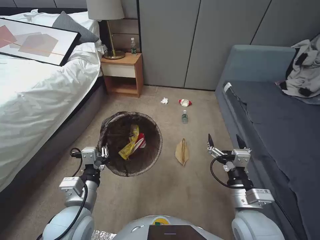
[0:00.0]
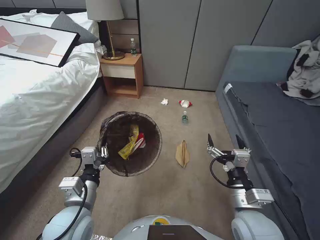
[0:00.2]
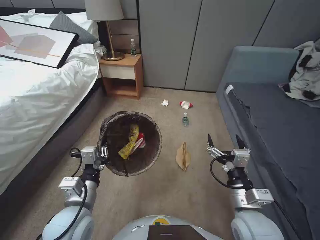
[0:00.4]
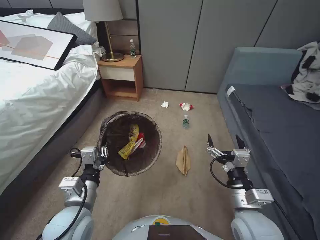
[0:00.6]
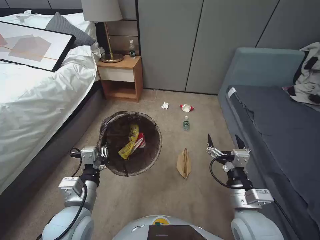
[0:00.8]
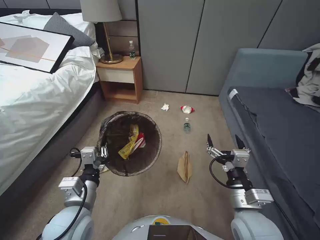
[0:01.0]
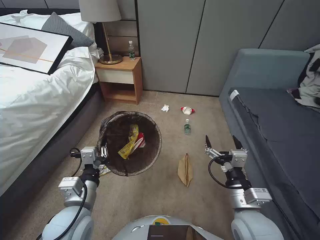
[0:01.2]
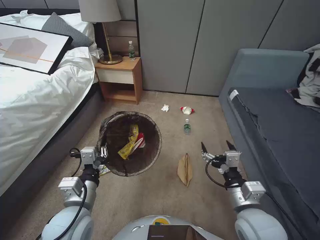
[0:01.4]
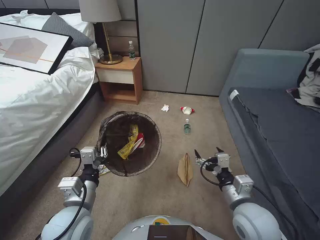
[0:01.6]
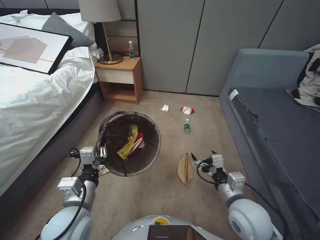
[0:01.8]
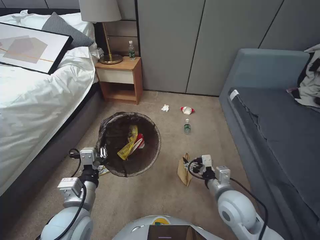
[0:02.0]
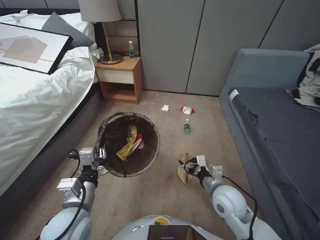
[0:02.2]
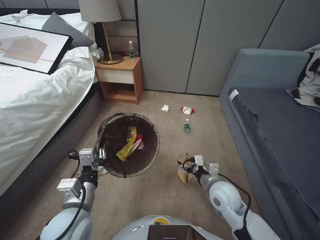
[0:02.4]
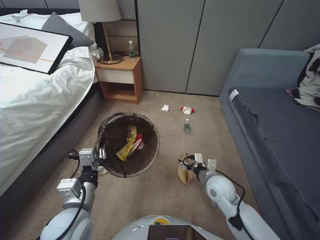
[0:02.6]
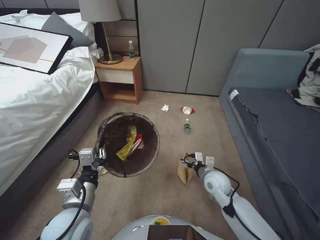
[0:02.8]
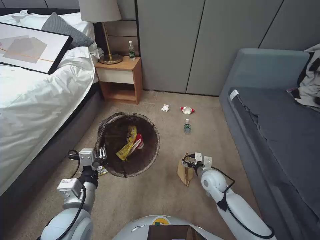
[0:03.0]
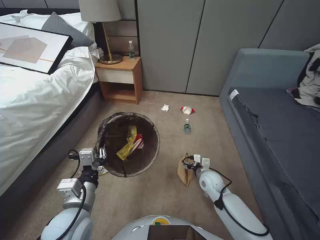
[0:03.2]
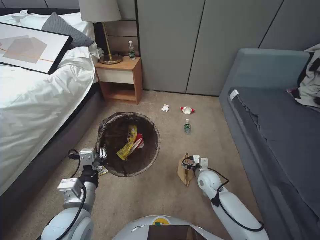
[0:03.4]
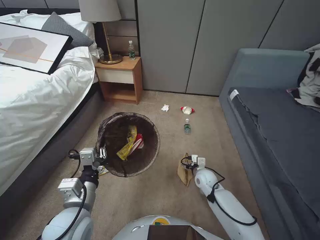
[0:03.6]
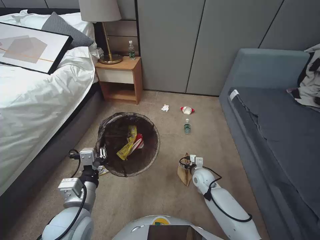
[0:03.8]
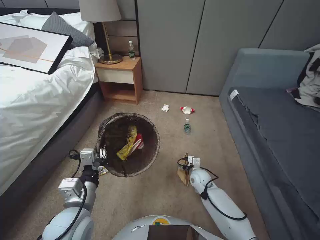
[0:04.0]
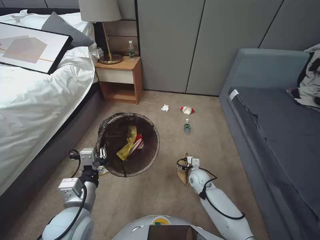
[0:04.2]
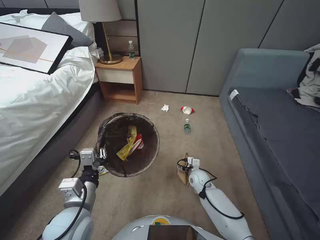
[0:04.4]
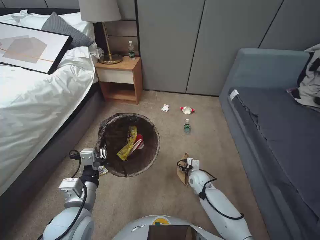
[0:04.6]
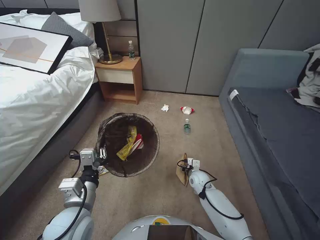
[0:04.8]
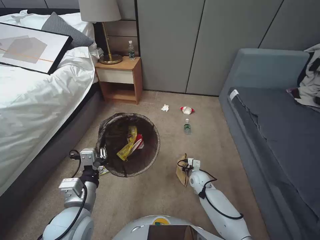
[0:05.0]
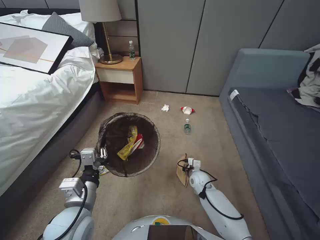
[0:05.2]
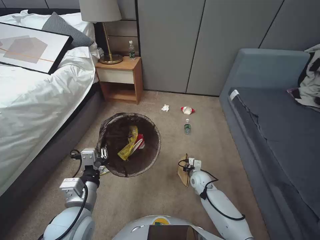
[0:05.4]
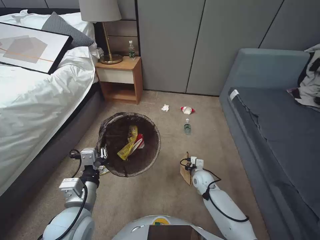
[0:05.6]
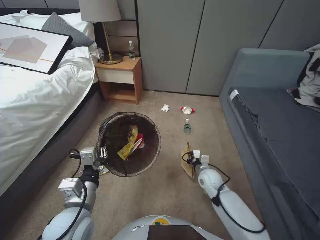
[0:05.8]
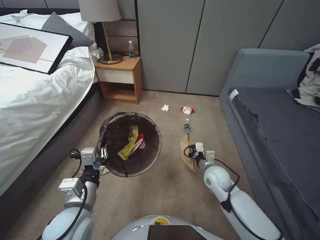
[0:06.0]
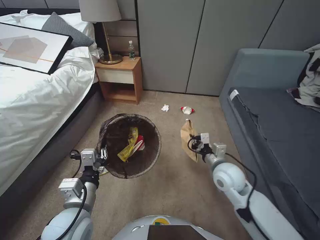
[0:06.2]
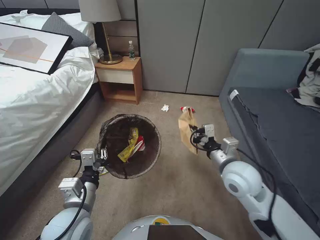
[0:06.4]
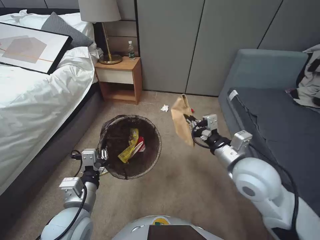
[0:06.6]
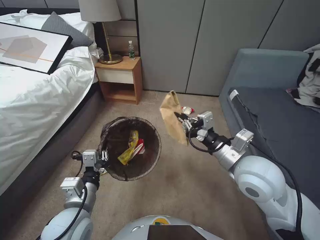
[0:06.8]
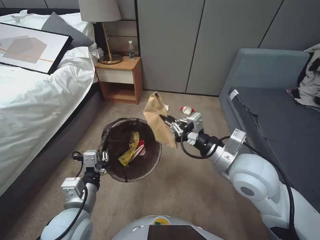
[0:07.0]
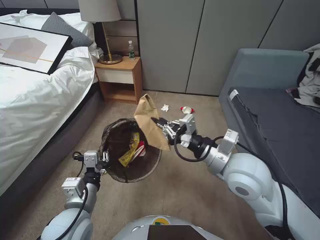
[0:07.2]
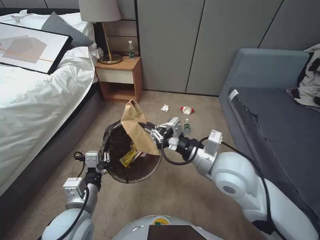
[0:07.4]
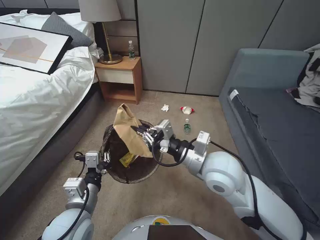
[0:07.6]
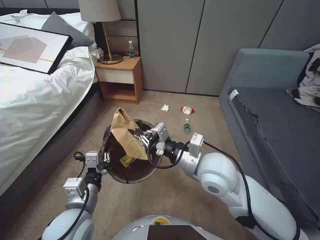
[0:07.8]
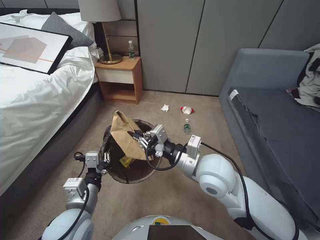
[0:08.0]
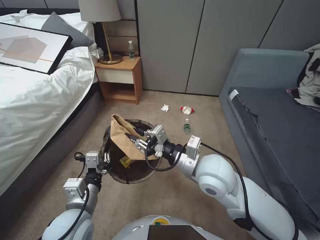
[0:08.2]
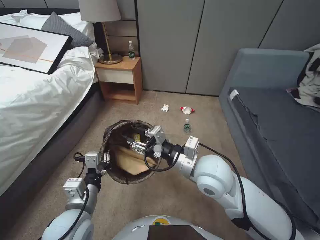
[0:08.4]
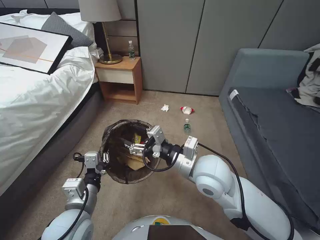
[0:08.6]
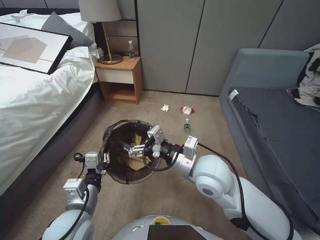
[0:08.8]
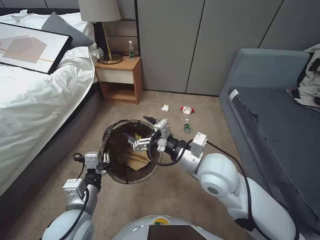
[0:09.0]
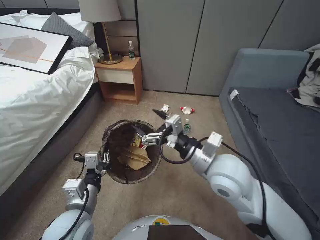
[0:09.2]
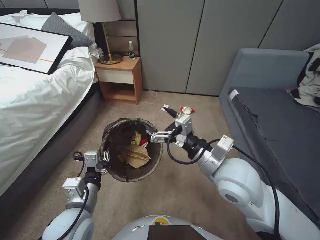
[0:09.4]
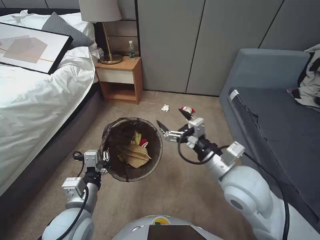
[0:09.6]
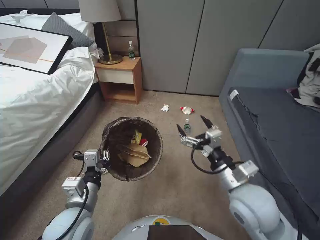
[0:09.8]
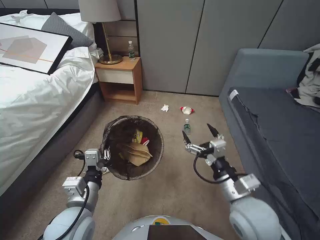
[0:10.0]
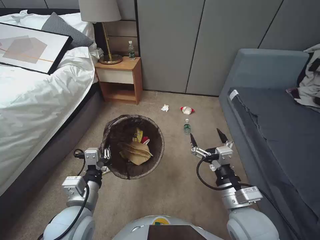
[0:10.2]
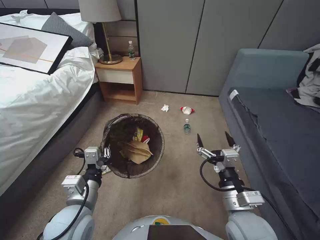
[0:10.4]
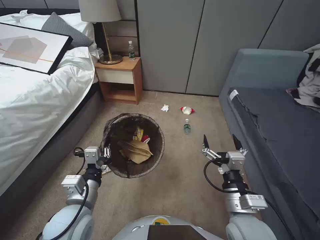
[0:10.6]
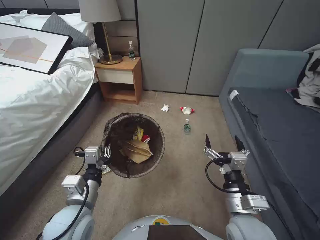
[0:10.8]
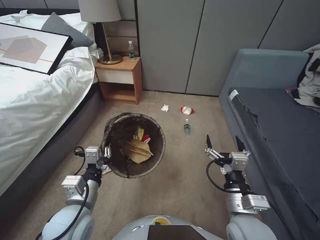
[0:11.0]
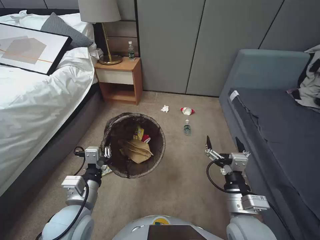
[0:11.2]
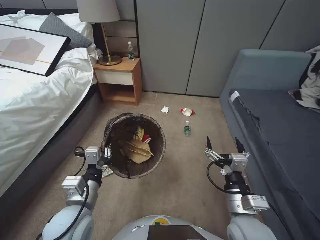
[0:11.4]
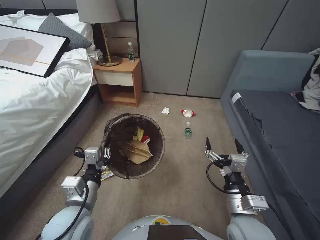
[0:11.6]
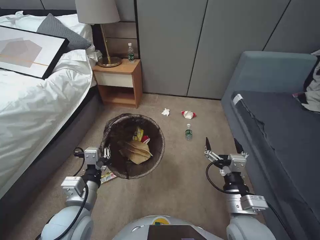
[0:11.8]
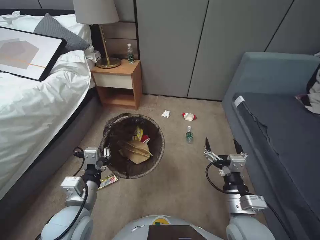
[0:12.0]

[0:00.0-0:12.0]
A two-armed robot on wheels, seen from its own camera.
Task of the whole recording: Pick up the trash bin, then pick up the garbage from the floor and place it into the trash bin.
0:01.6 to 0:03.0: The right gripper moves forward and downward, some 20 cm.
0:03.0 to 0:04.4: The right gripper shifts roughly 10 cm downward.
0:04.4 to 0:06.0: The right gripper goes roughly 10 cm upward, and closes up.
0:06.0 to 0:07.6: The right gripper heads upward, covering roughly 20 cm.
0:07.6 to 0:09.0: The right gripper opens.
0:09.0 to 0:10.4: The right gripper moves backward, to the right and downward, some 15 cm.
0:10.4 to 0:12.0: The grippers move only a little.

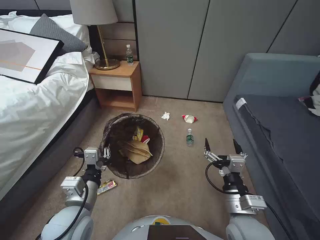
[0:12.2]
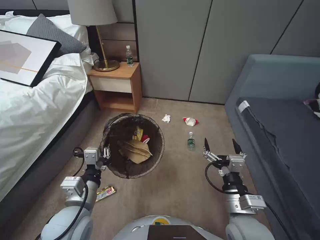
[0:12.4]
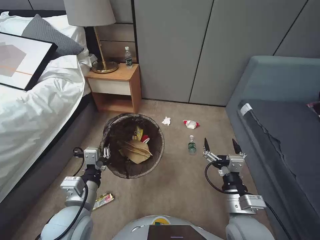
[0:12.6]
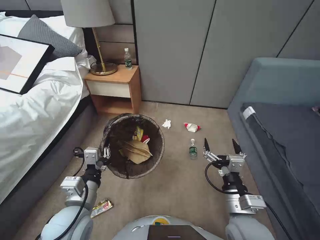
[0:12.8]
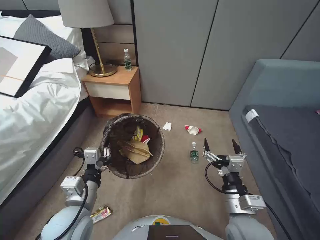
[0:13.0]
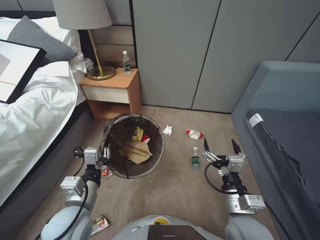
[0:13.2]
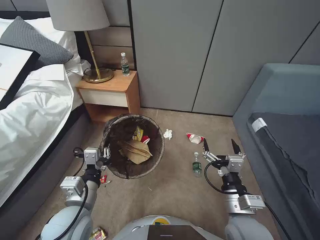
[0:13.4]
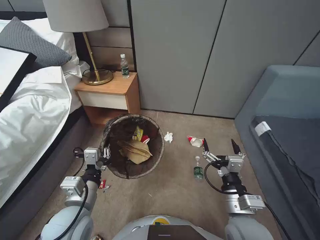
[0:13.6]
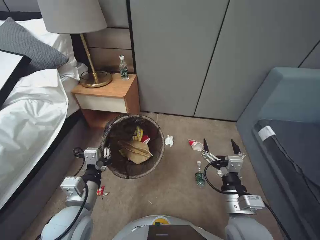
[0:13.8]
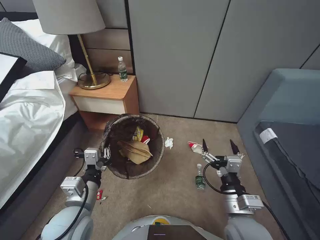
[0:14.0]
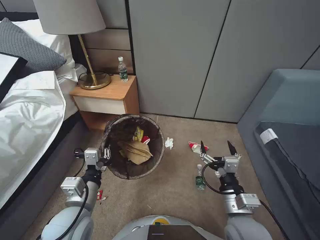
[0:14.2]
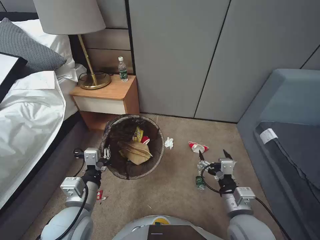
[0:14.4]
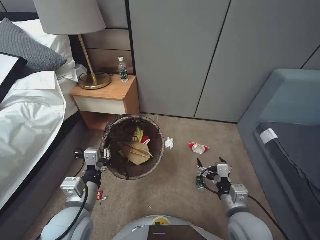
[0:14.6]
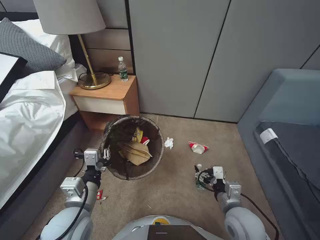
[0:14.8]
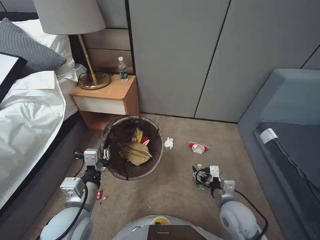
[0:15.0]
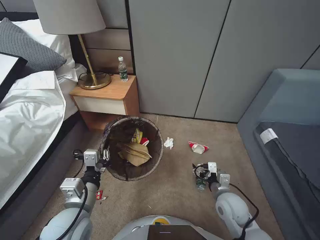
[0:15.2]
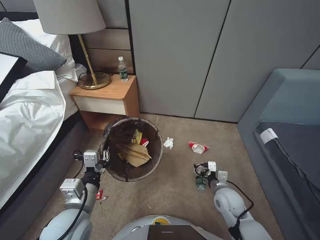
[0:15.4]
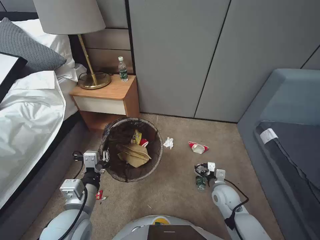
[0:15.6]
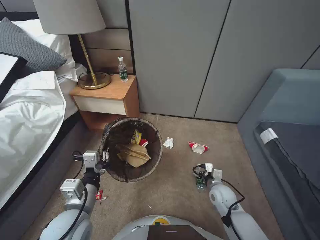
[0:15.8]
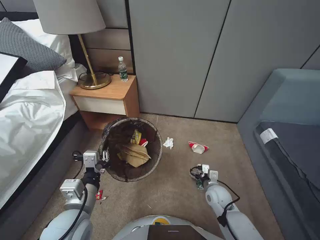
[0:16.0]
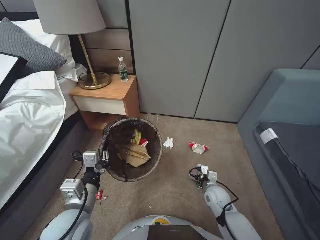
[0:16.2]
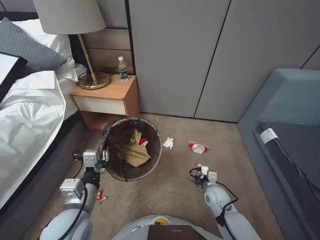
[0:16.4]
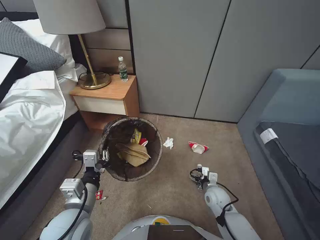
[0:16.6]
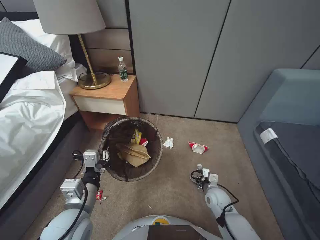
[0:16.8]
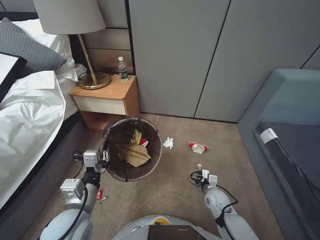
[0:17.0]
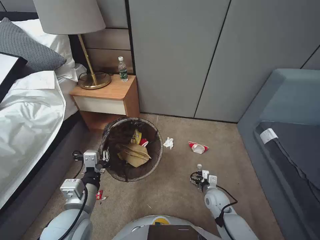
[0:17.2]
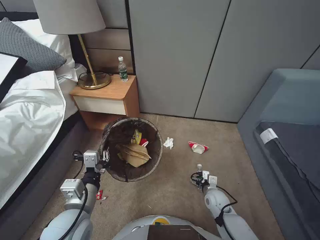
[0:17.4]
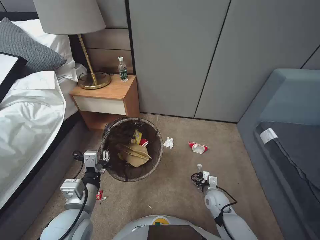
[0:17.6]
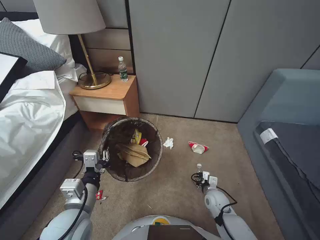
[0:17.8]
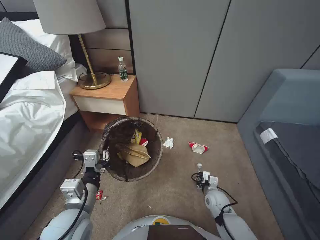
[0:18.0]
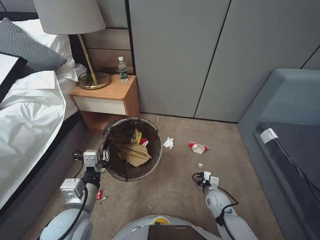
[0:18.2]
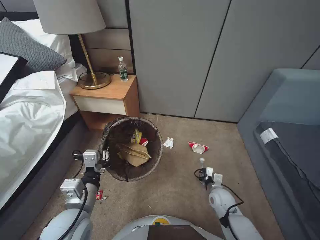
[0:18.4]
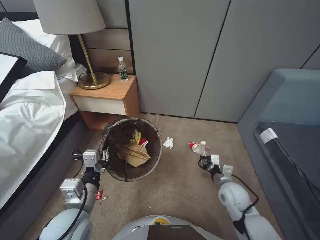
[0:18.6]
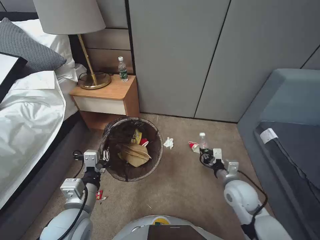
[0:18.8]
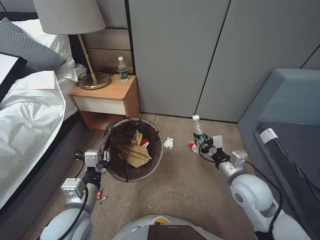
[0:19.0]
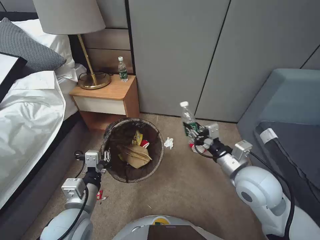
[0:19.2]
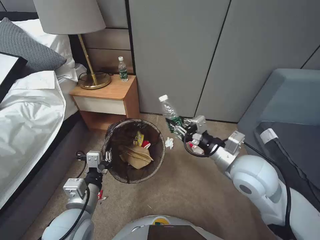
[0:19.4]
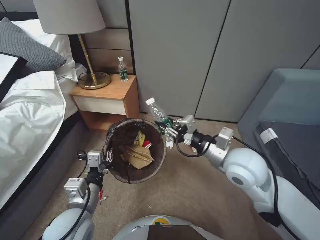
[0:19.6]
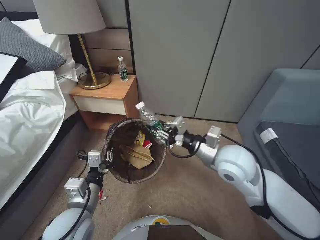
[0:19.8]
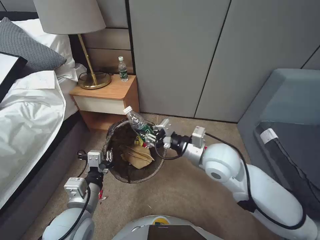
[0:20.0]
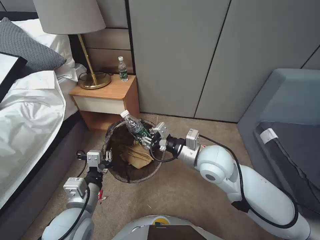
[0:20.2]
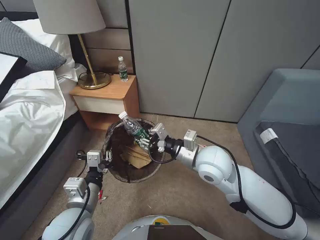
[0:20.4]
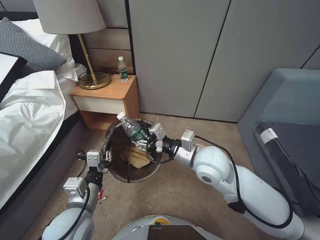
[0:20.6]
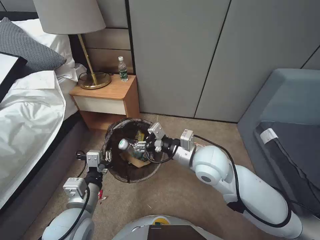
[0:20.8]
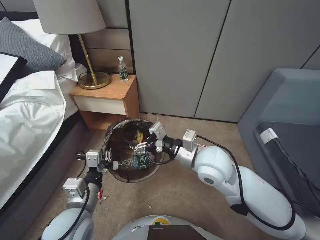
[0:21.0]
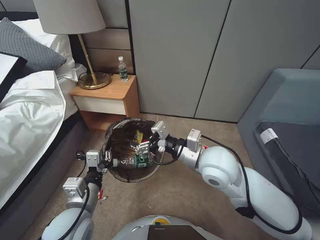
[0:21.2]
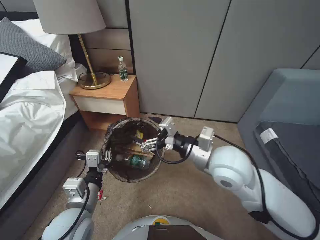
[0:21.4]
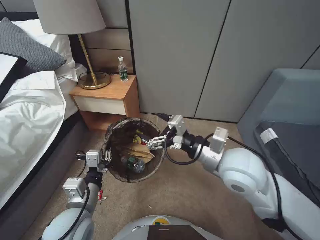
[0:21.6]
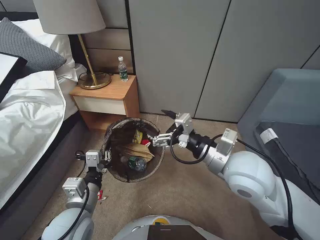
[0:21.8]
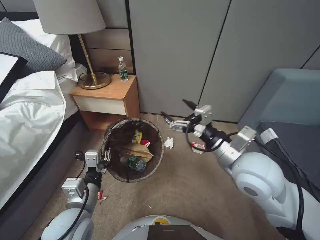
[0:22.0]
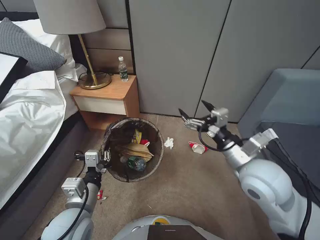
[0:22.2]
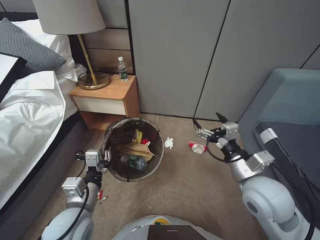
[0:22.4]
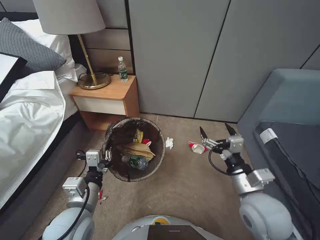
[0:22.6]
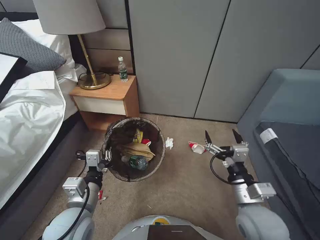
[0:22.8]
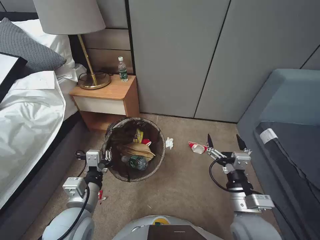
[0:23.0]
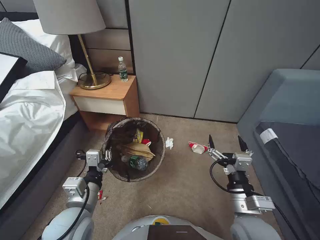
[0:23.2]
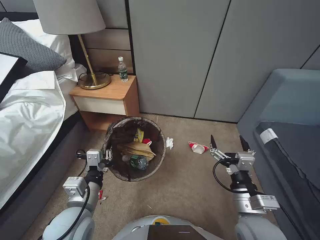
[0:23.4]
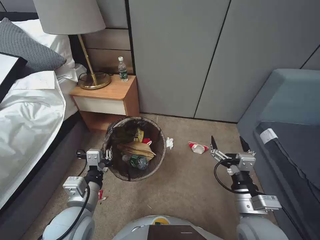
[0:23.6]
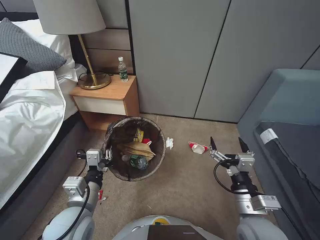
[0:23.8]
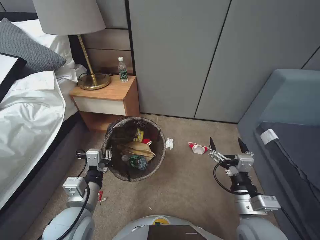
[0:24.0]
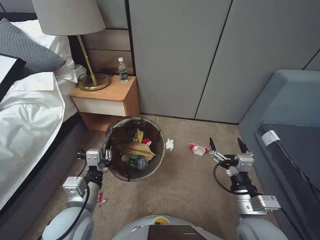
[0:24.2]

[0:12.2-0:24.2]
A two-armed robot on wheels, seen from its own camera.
Task of the whole recording: Pick up the trash bin, then pick up the garbage from the floor and place it into the trash bin.
0:13.8 to 0:15.2: The right gripper is displaced downward and forward by about 10 cm.
0:15.2 to 0:16.6: The right gripper shifts roughly 10 cm downward and forward.
0:16.6 to 0:18.2: The right gripper closes its fingers.
0:18.2 to 0:19.8: The right gripper goes approximately 35 cm upward.
0:19.8 to 0:21.2: The right gripper goes about 5 cm to the left, and opens.
0:21.2 to 0:22.6: The right gripper is displaced to the right, backward and downward by roughly 15 cm.
0:22.6 to 0:24.2: The right gripper heads backward, covering some 5 cm.
